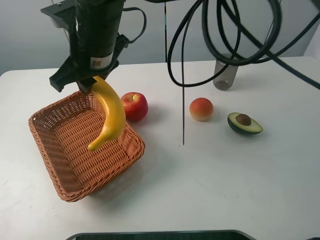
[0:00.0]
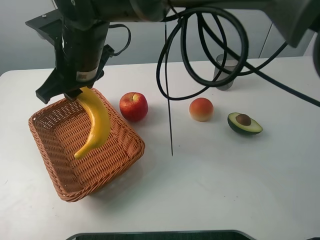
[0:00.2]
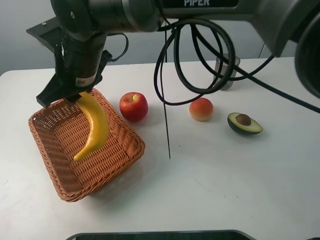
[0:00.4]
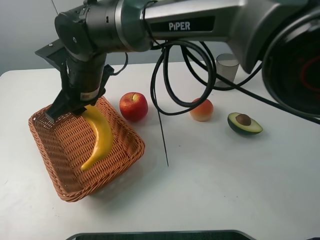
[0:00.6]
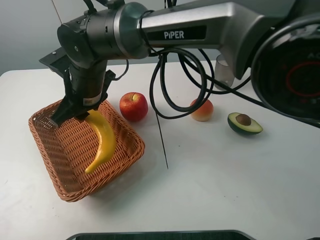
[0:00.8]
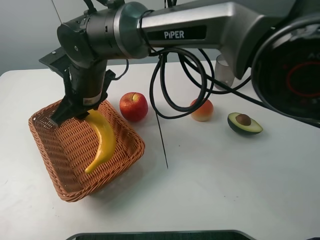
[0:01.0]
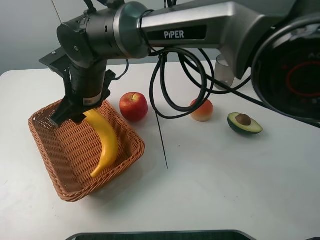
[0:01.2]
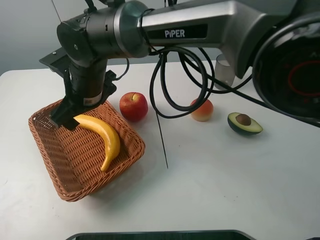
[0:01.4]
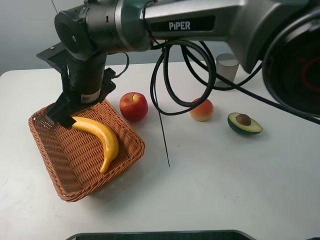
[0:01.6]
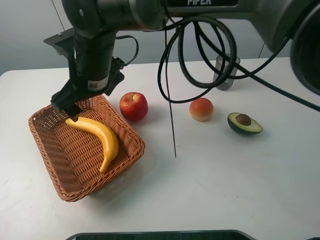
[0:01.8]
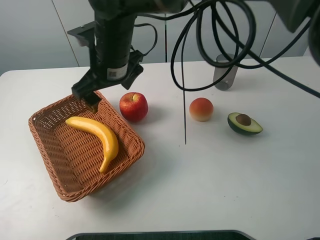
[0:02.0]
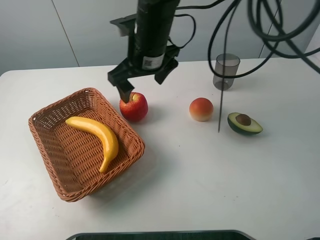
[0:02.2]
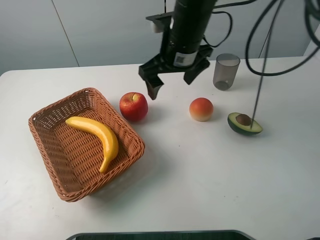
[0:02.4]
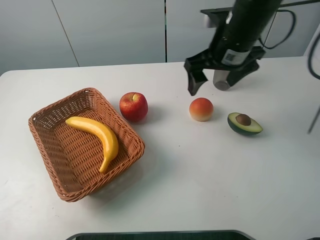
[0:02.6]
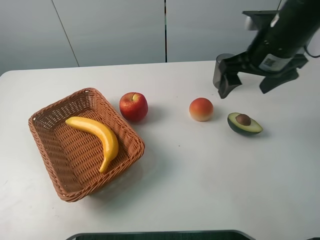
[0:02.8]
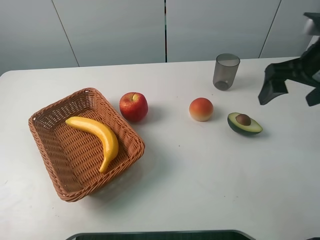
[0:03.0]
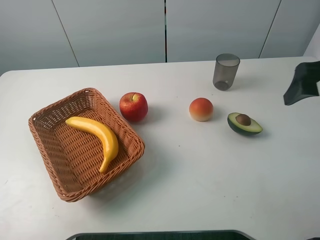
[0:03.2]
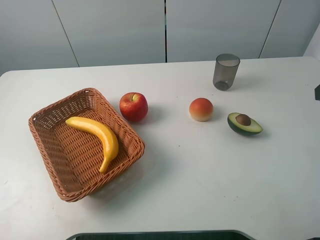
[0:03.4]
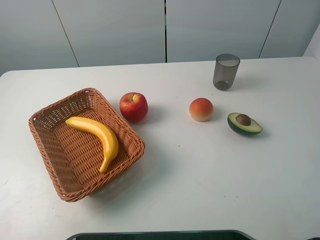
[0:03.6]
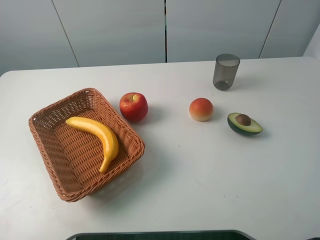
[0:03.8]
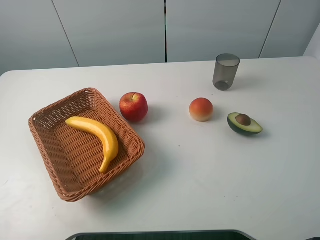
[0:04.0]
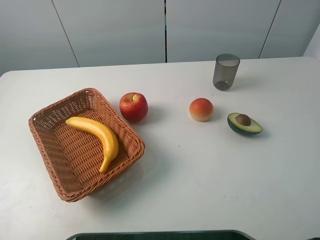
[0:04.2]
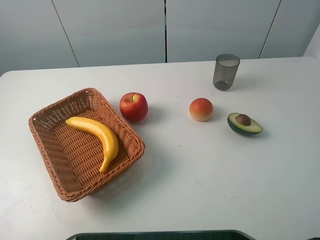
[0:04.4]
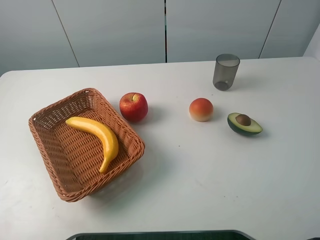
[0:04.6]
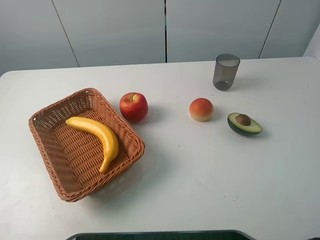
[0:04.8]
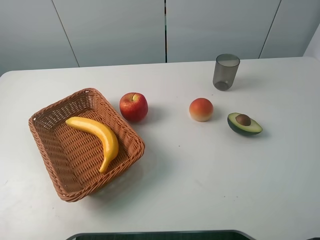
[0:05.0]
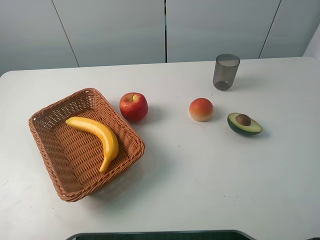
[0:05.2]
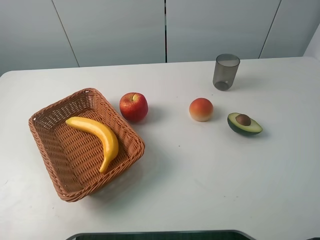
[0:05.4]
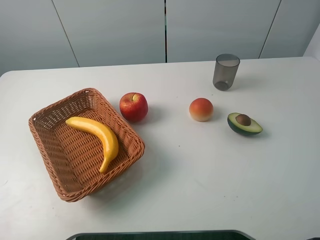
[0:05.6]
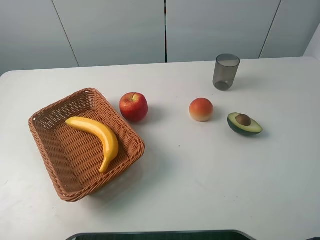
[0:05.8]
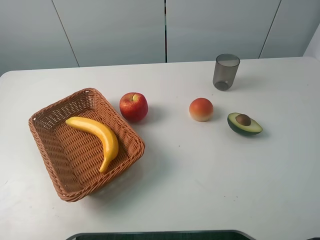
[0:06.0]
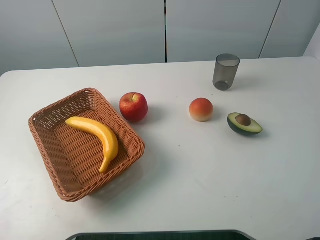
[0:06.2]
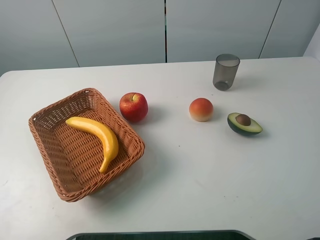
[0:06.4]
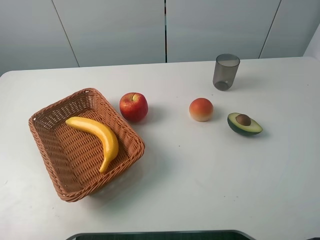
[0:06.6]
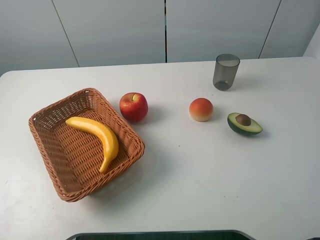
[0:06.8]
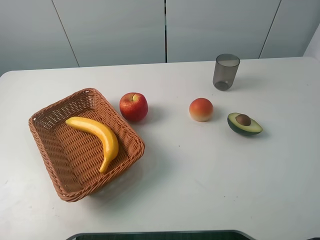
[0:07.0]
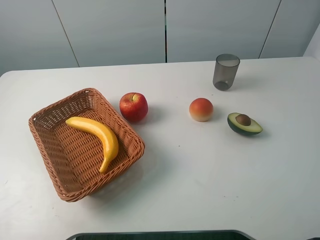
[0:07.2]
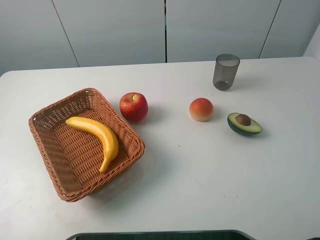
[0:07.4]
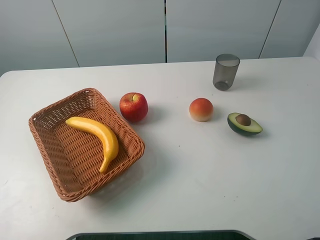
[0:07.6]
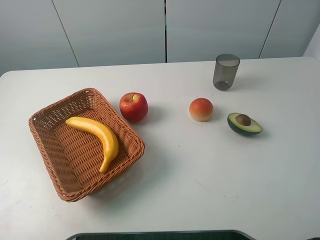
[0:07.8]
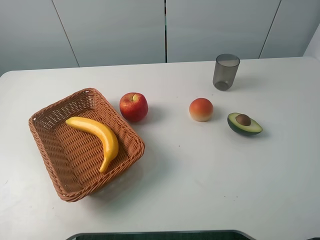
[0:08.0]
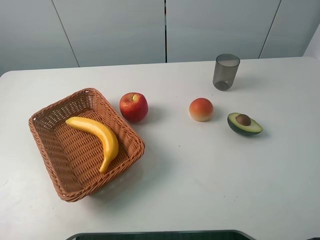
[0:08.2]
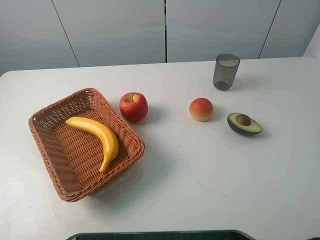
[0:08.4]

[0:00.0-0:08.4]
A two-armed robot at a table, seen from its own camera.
Task of the whole recording: randomly pick up an item from the table and put it in the basket.
0:00.0 to 0:01.4: The right gripper moves downward, some 5 cm, and opens.
0:01.4 to 0:02.8: The right gripper goes about 35 cm to the right.
0:02.8 to 0:04.2: The right gripper shifts approximately 25 cm backward.
0:05.6 to 0:08.4: Both grippers stay put.
